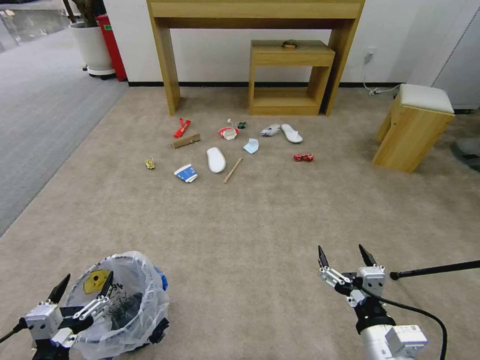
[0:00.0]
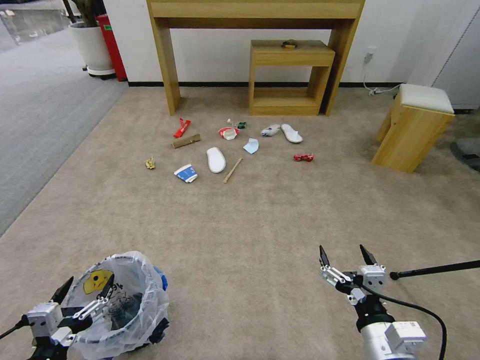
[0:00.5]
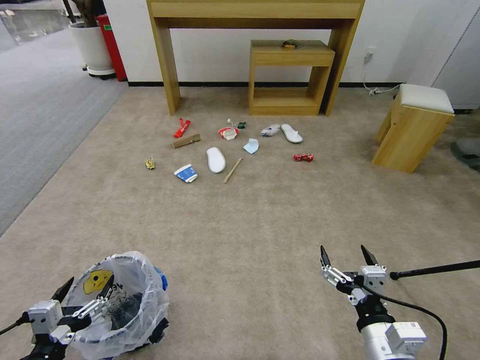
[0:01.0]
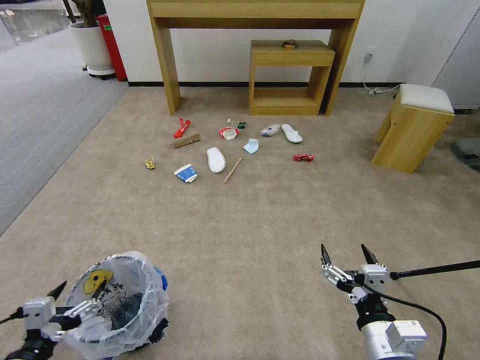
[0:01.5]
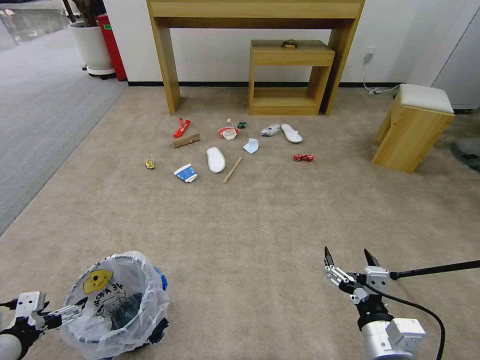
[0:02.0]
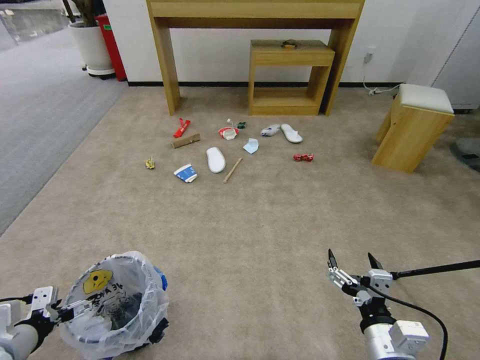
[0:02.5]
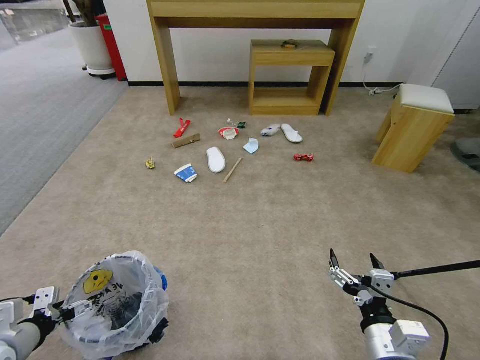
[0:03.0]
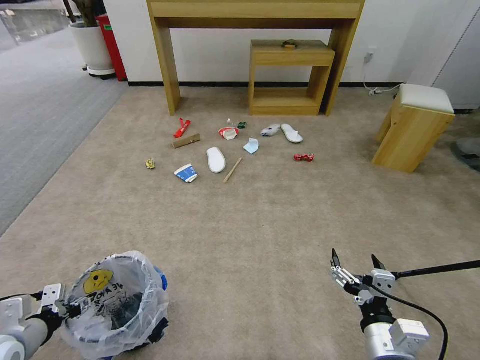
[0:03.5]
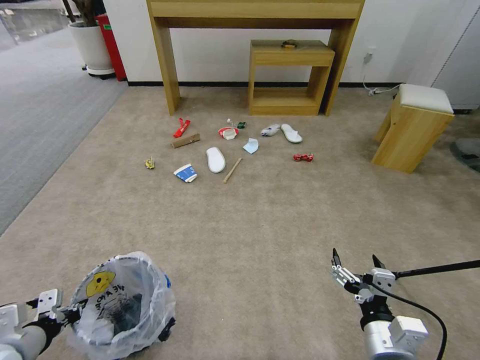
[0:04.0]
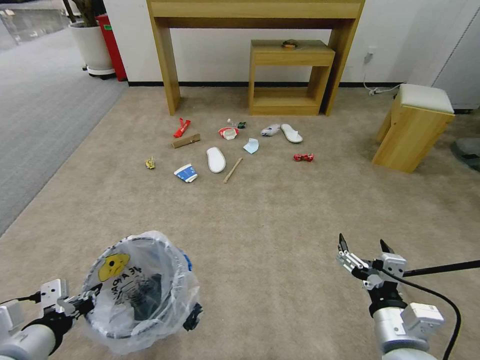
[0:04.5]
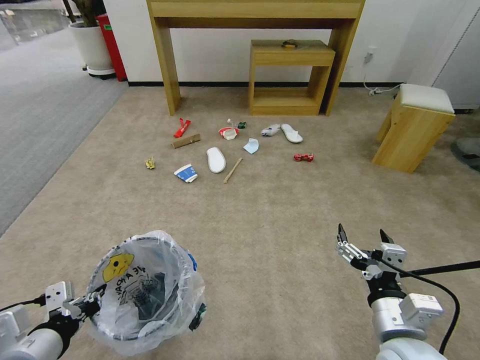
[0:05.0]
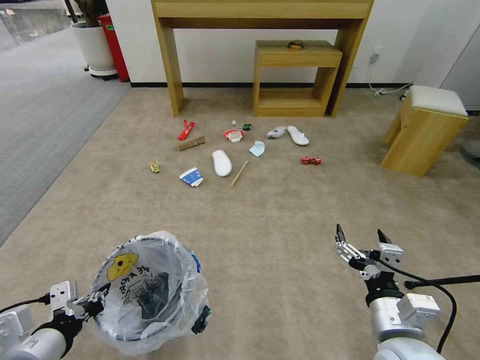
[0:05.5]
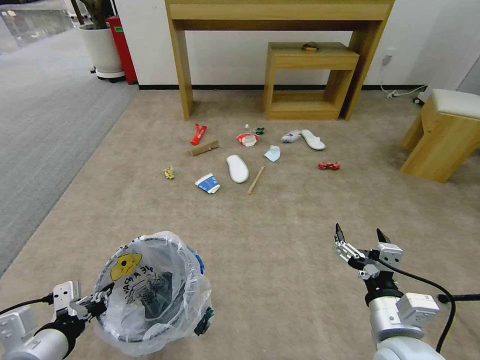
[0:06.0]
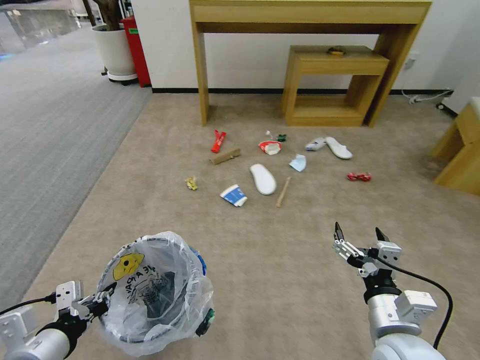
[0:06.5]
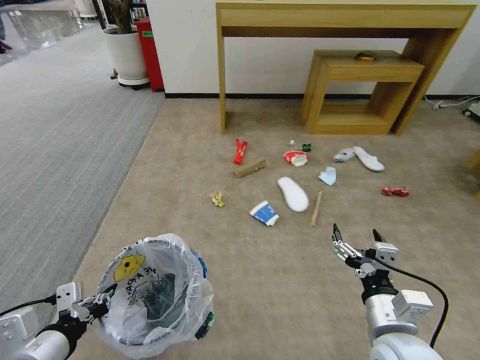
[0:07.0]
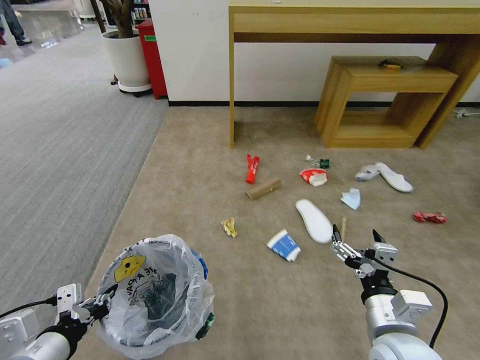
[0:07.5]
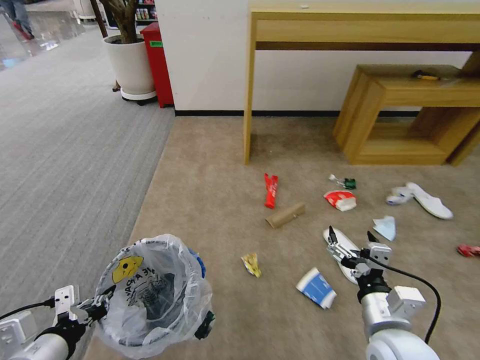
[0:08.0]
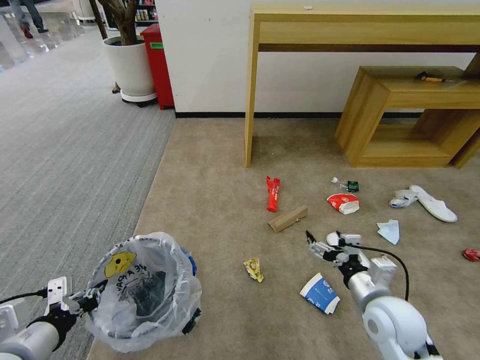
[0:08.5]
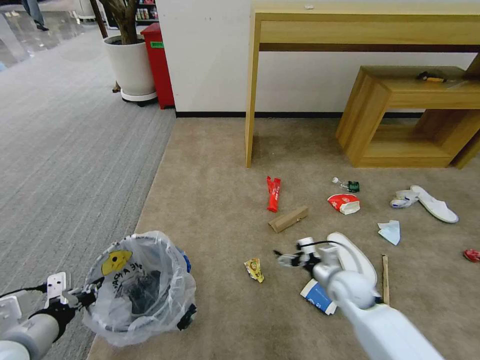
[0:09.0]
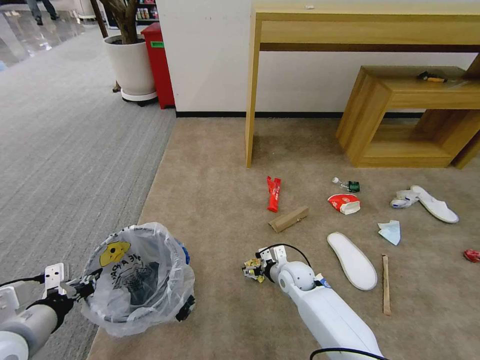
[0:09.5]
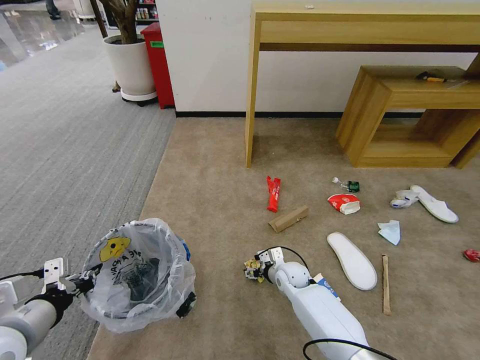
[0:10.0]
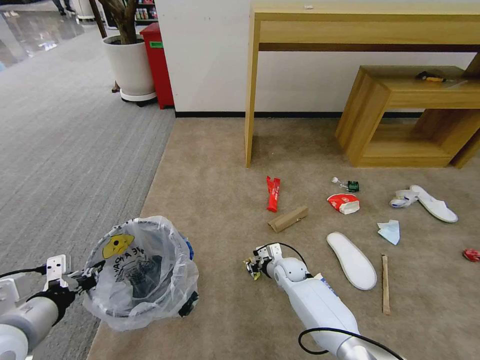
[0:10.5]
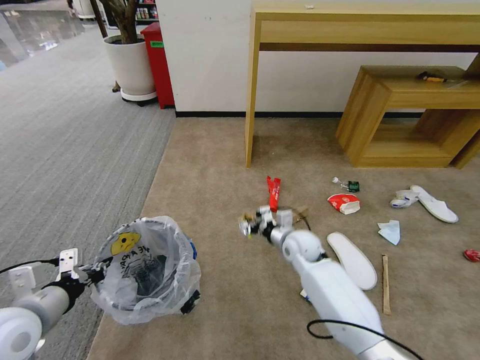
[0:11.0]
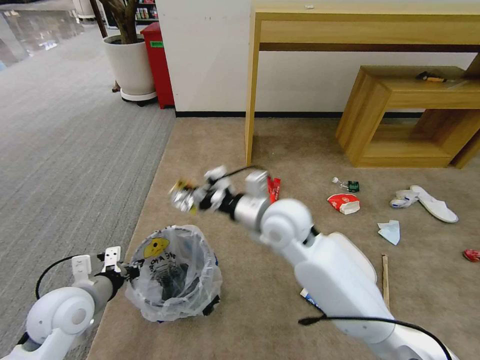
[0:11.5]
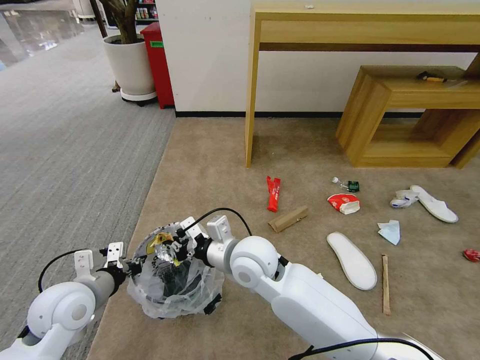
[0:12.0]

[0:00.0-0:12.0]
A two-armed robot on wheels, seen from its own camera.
Task of the whole recording: Pick up the trash bin and place the garbage on the floor into it.
0:02.0 to 0:04.0: The left gripper closes up.
0:04.0 to 0:06.0: The left gripper moves to the right and upward, roughly 10 cm.
0:08.0 to 0:10.0: The left gripper moves forward, approximately 5 cm; the right gripper moves forward, downward and to the left, some 35 cm.
0:10.0 to 0:12.0: The right gripper moves upward and to the left, approximately 30 cm, and closes its fingers. The left gripper is displaced forward by about 10 cm.

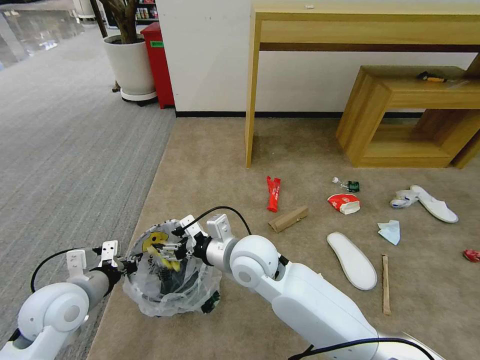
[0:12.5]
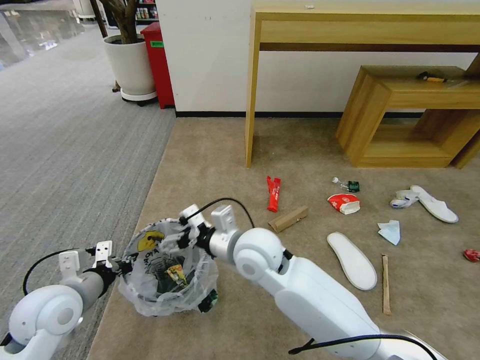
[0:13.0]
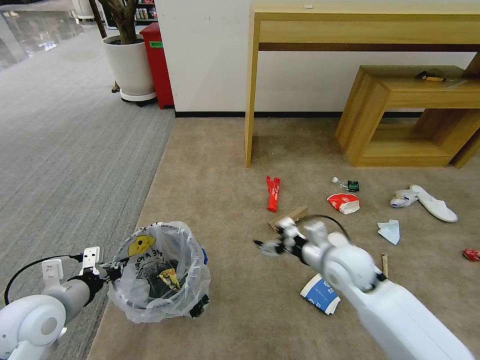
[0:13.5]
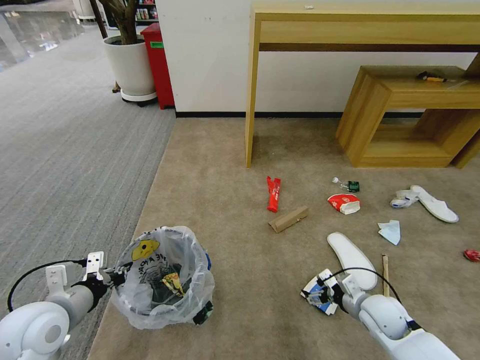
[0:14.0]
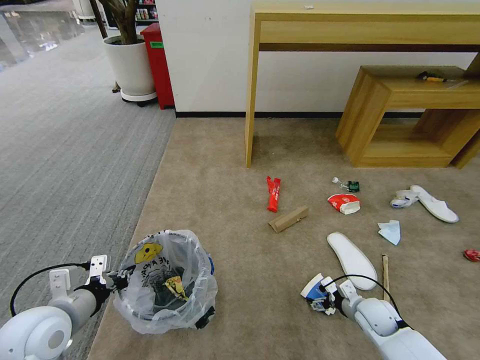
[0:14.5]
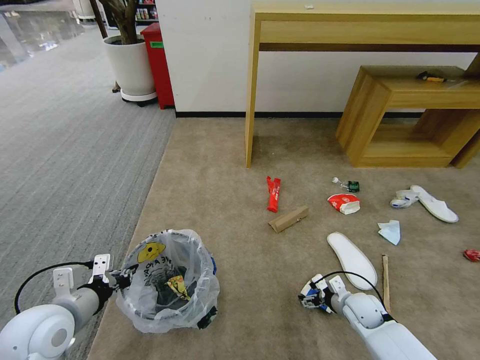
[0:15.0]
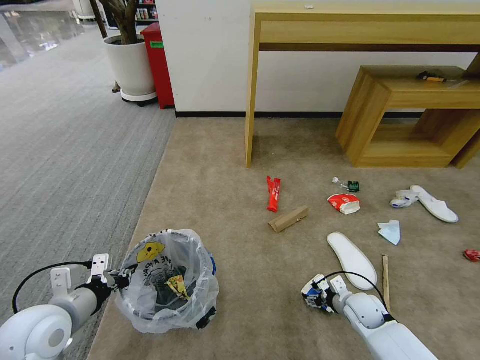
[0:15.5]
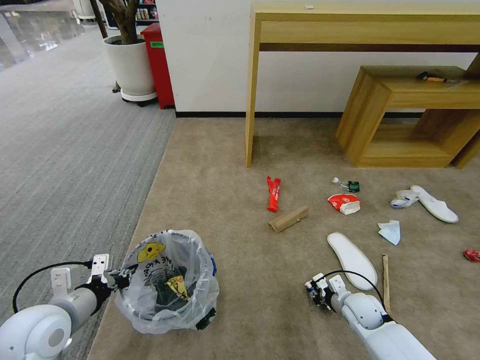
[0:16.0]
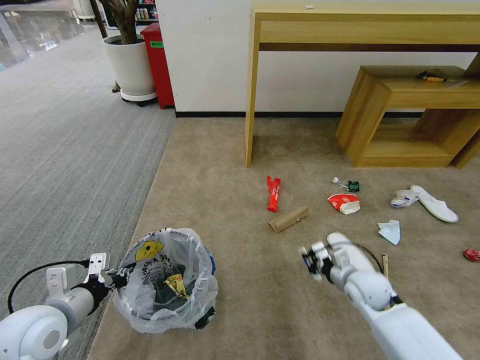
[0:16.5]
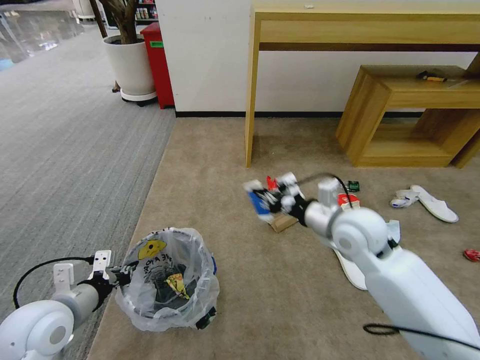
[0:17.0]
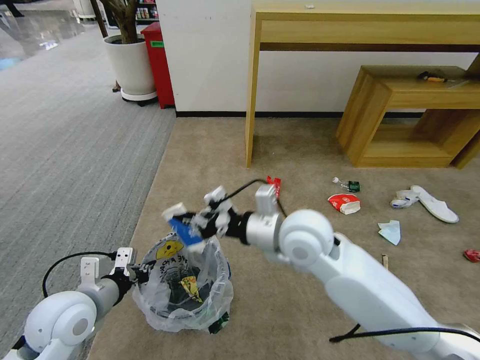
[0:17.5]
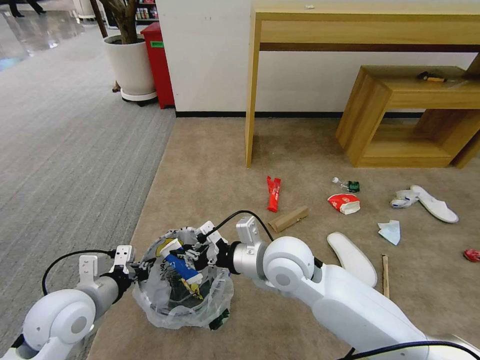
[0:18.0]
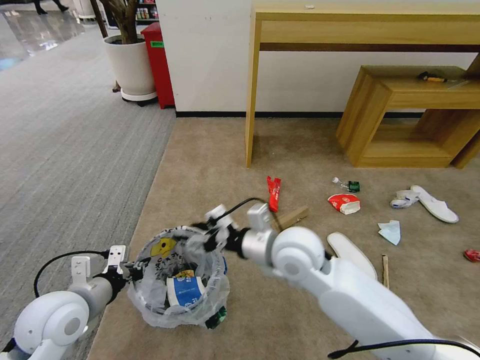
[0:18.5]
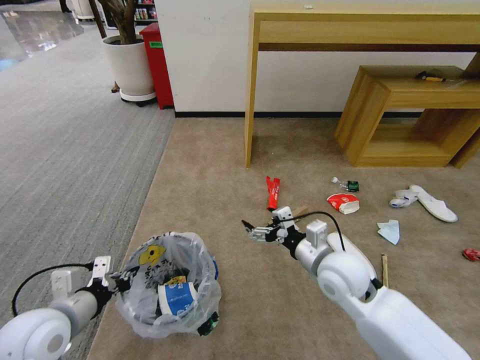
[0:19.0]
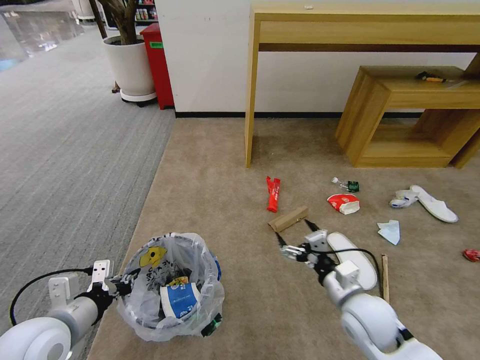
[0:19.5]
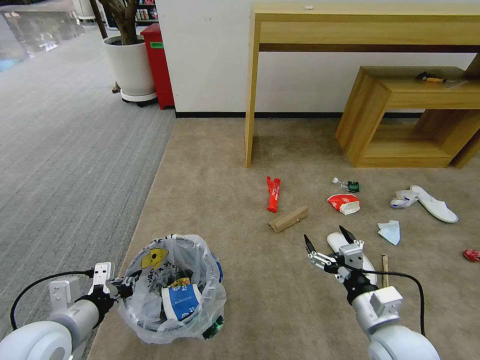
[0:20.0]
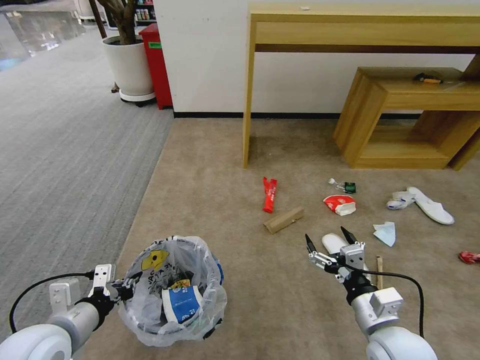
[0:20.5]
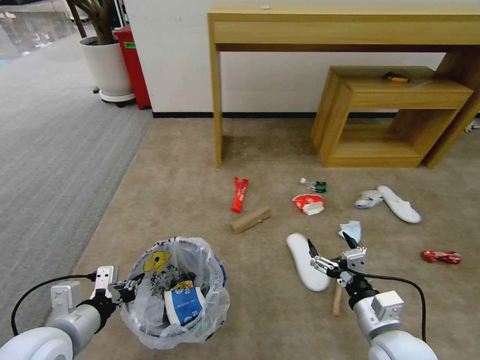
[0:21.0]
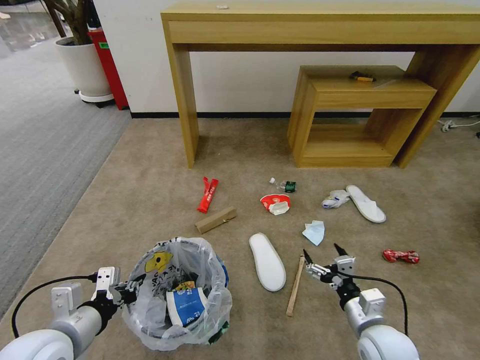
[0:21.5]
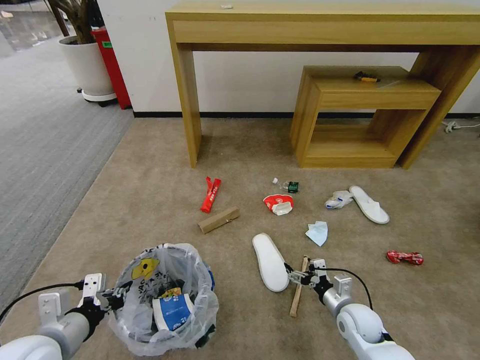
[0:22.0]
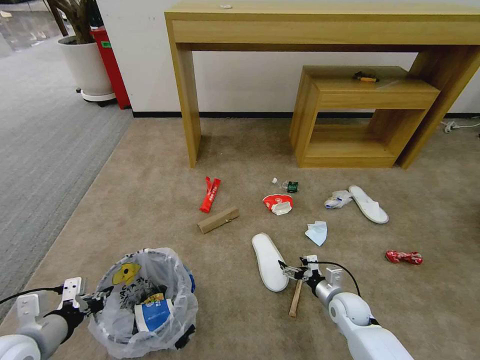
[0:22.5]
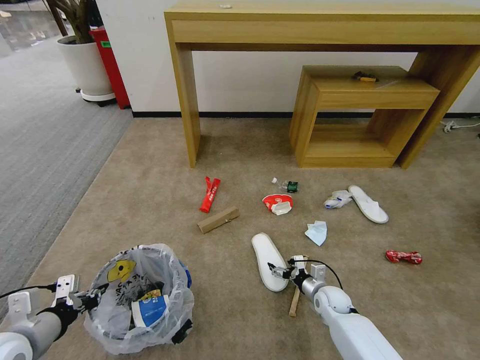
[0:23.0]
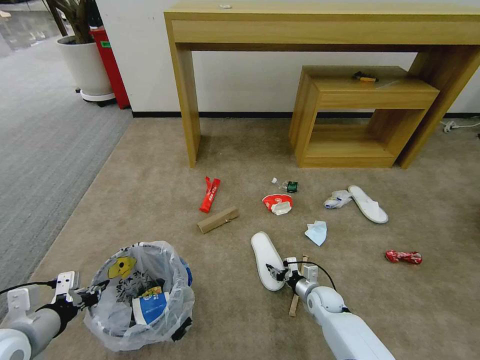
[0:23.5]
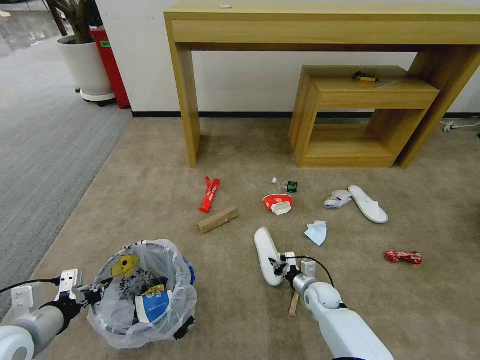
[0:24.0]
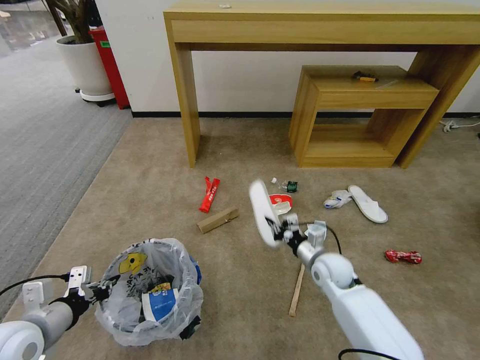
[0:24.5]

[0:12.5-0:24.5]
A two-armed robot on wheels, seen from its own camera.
Task of the whole recording: Pick up the trash bin and place the garbage on the floor into it.
0:12.5 to 0:14.5: The right gripper heads to the right and downward, covering about 40 cm.
0:14.5 to 0:16.5: The right gripper shifts roughly 10 cm upward, and closes.
0:16.5 to 0:18.5: The right gripper is displaced to the left and upward by approximately 30 cm, and opens up.
0:18.5 to 0:20.5: The left gripper goes roughly 5 cm backward. The right gripper moves to the right, backward and downward, some 25 cm, and opens its fingers.
0:20.5 to 0:22.5: The left gripper moves to the left, approximately 5 cm, while the right gripper travels downward and forward by about 25 cm.
0:22.5 to 0:24.5: The right gripper moves upward, forward and to the left, roughly 15 cm, and closes.

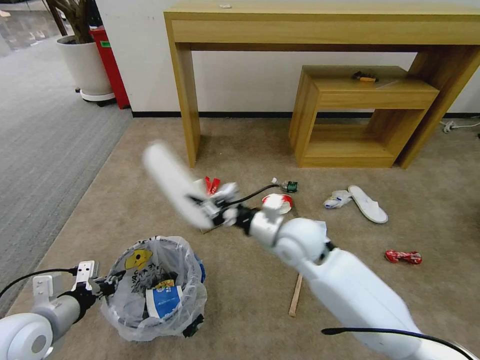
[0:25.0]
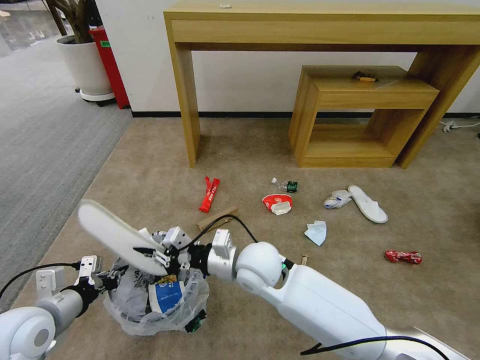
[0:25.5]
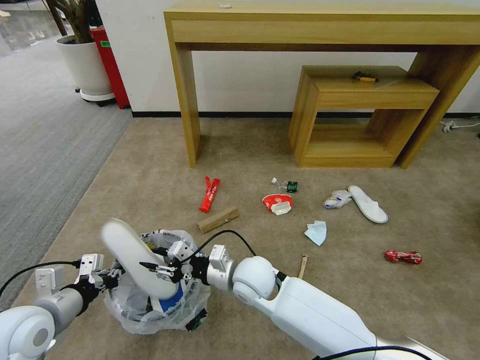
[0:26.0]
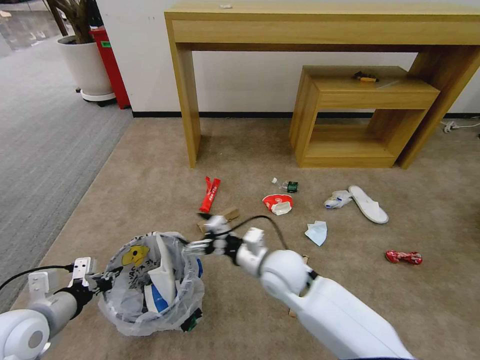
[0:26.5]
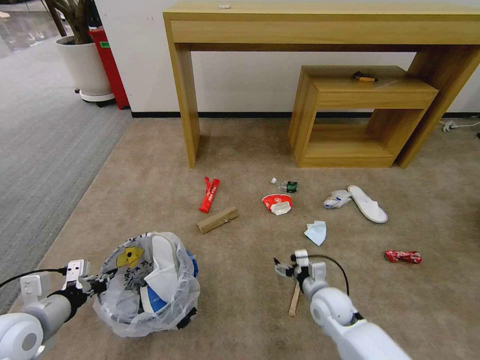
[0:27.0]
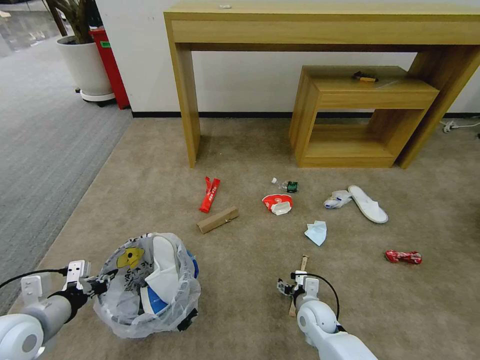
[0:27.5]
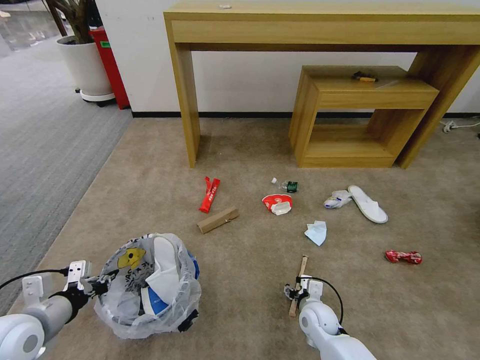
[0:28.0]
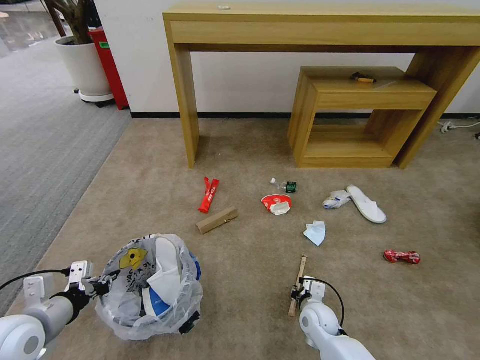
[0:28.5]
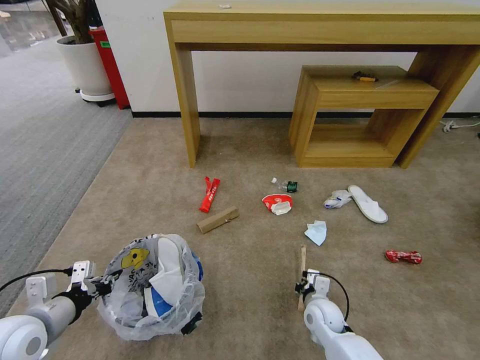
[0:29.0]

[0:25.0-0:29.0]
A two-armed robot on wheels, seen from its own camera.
Task of the whole recording: Pick up the trash bin and place the garbage on the floor into it.
0:25.0 to 0:27.0: The right gripper is displaced downward and to the right by approximately 20 cm, and opens.
0:27.0 to 0:29.0: The right gripper is displaced downward by roughly 5 cm, and closes up.
